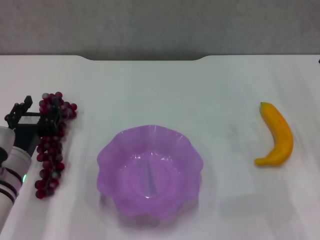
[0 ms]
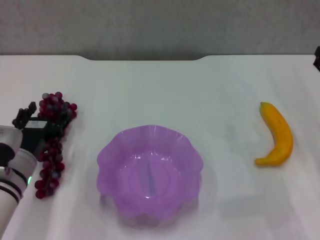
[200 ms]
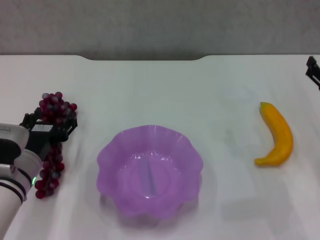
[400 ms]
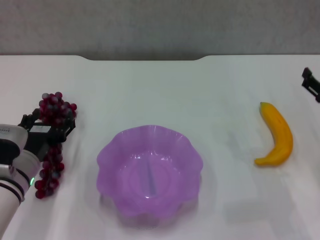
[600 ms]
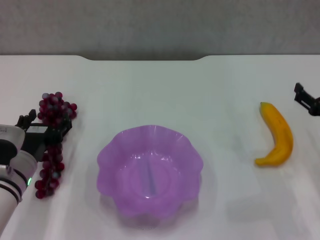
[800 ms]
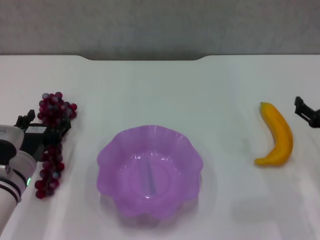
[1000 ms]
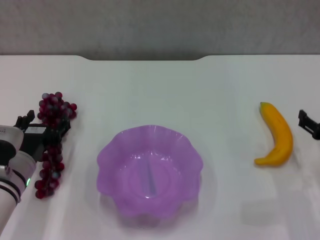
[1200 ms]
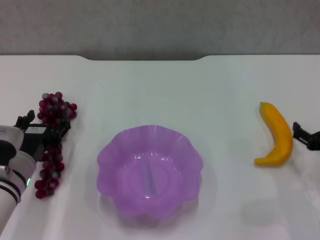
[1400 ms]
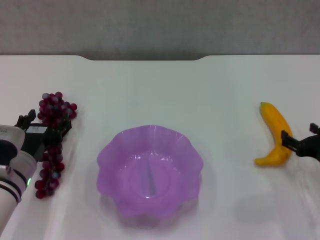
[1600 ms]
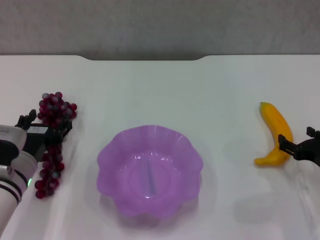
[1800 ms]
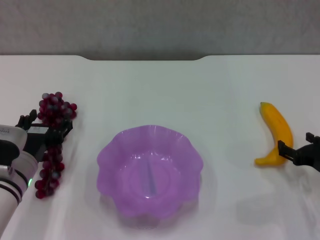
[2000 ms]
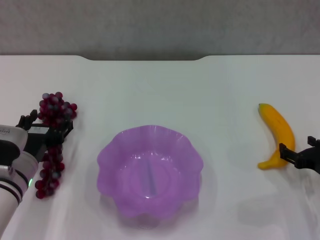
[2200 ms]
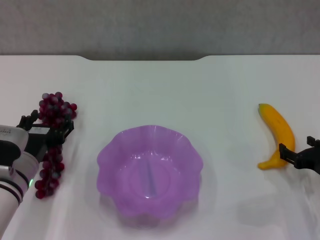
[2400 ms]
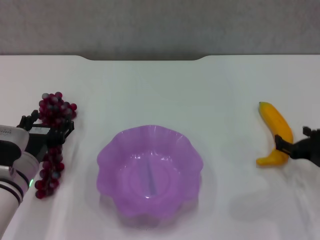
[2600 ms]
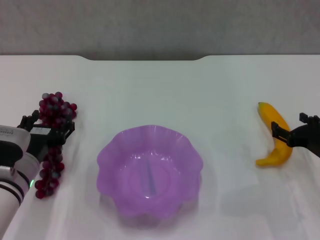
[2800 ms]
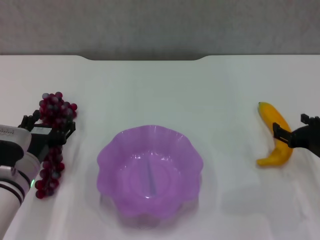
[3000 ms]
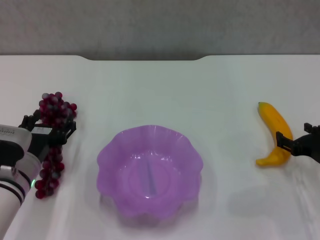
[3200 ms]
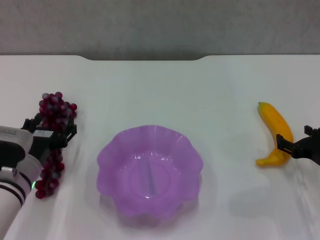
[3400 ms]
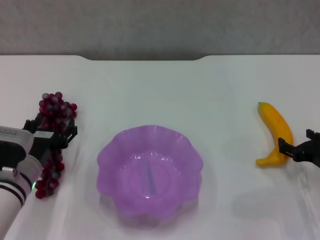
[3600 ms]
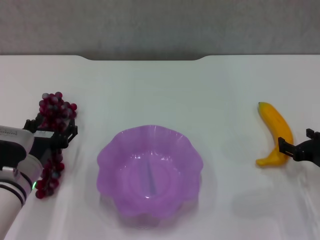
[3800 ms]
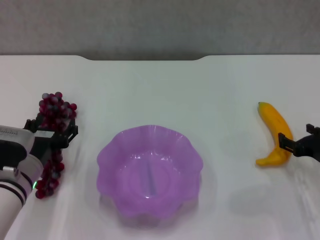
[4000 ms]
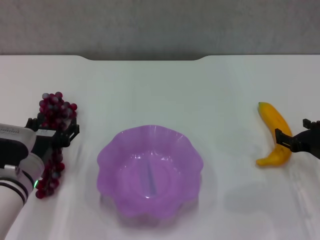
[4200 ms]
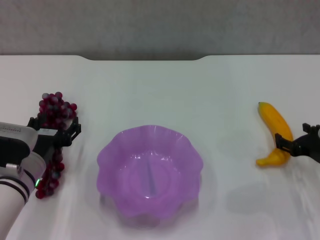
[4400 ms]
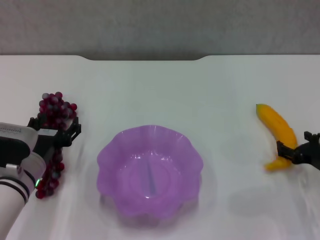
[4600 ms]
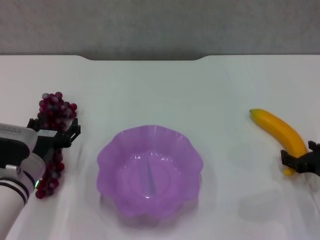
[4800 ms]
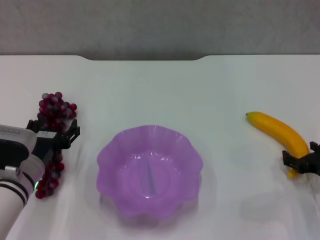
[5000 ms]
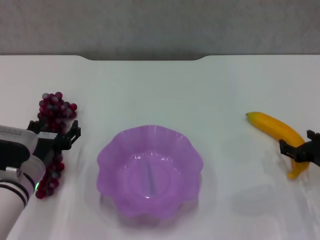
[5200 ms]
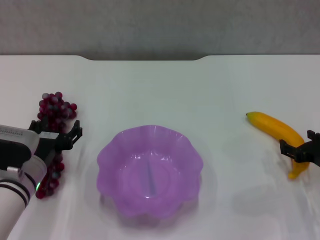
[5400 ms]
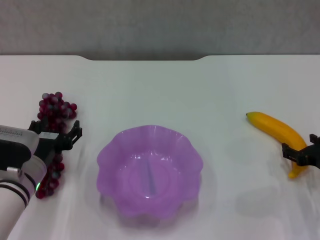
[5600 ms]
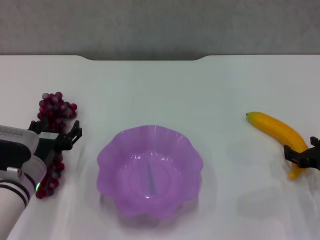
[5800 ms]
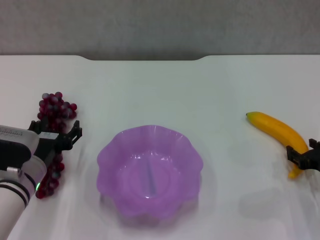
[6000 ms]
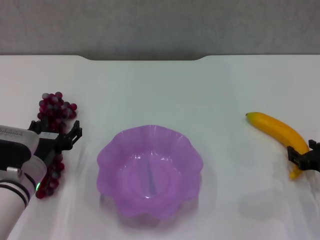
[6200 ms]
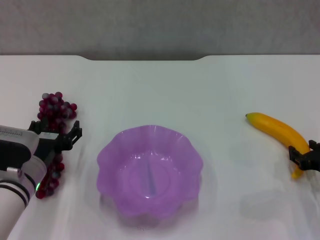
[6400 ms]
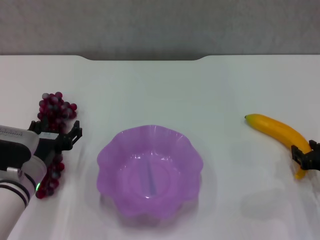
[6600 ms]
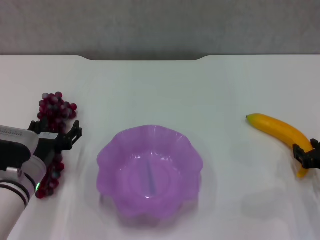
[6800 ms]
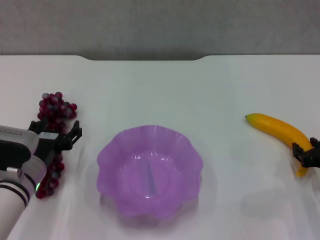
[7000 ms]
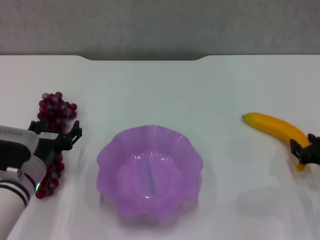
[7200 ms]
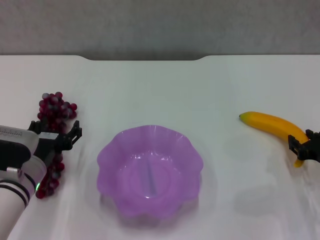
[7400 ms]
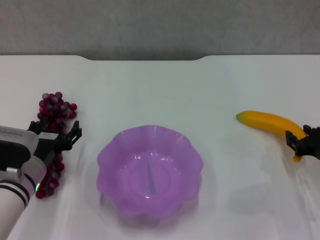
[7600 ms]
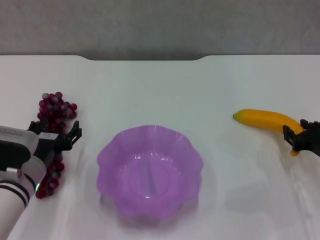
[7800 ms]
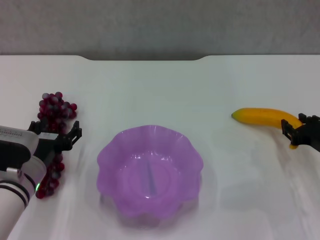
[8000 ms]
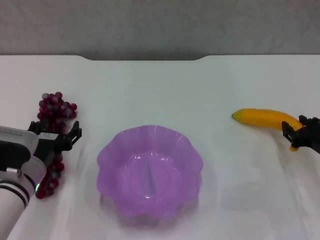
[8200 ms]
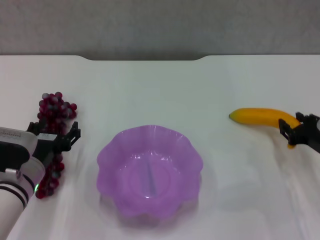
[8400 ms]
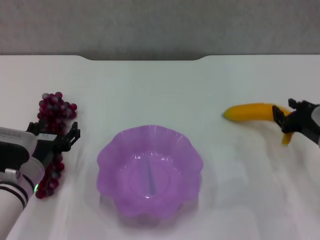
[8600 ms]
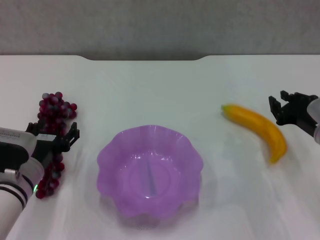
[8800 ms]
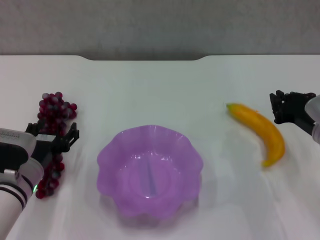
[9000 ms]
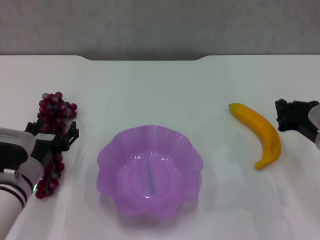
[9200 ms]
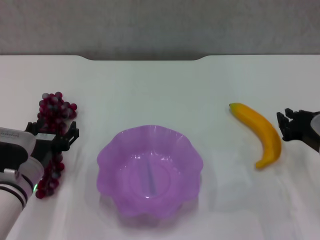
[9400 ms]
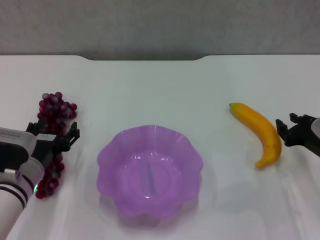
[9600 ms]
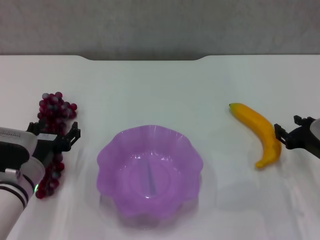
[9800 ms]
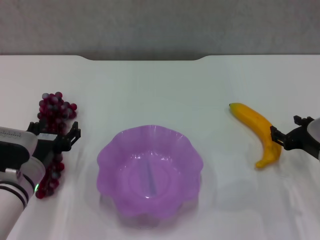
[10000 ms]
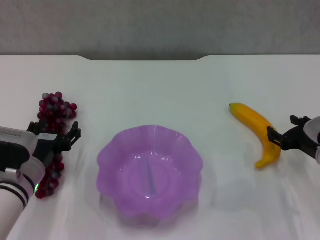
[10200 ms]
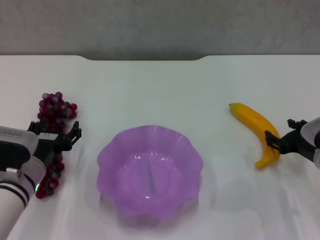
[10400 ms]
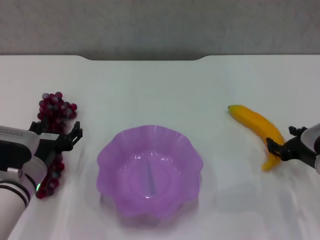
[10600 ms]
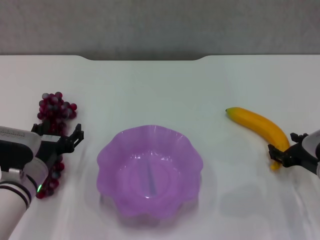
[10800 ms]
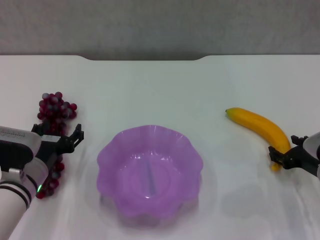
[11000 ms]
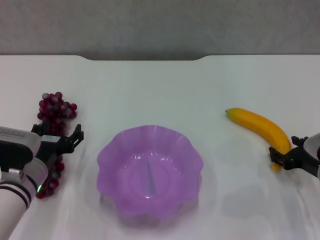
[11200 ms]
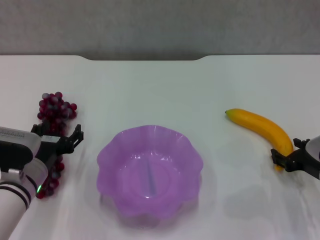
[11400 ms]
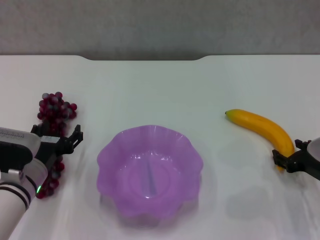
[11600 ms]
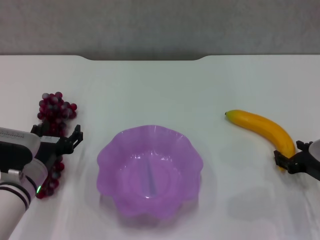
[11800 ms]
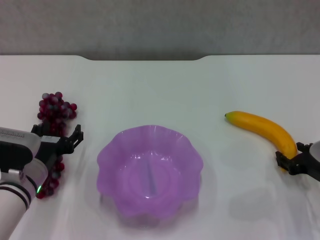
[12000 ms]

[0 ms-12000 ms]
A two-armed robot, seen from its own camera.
0 ms to 1600 ms: The left gripper opens up. The right gripper travels downward by roughly 5 cm, and opens up.
1600 ms to 7600 ms: The grippers make only small movements.
7600 ms to 9000 ms: The right gripper moves approximately 5 cm.
9000 ms to 10400 ms: The right gripper opens up.
10400 ms to 12000 ms: The grippers make only small movements.

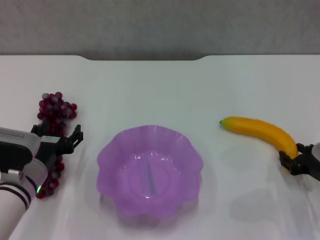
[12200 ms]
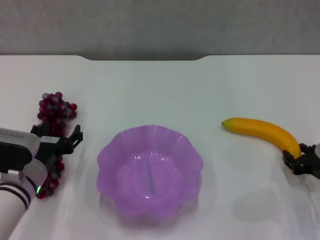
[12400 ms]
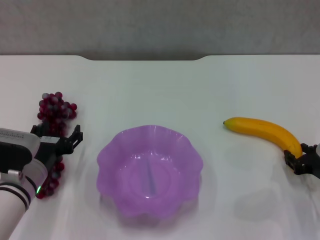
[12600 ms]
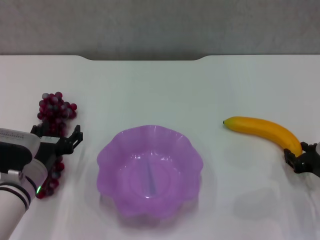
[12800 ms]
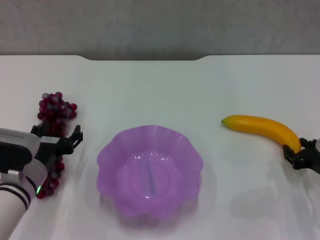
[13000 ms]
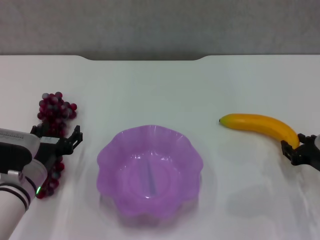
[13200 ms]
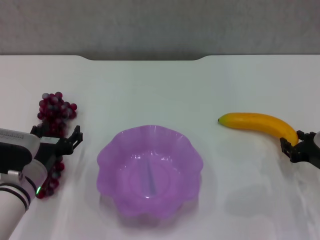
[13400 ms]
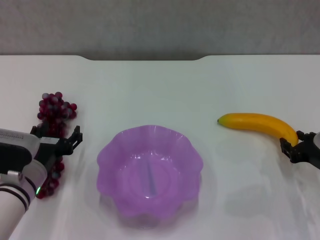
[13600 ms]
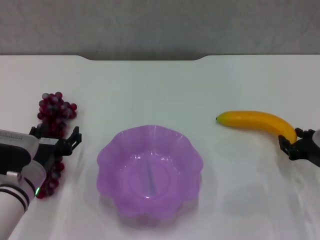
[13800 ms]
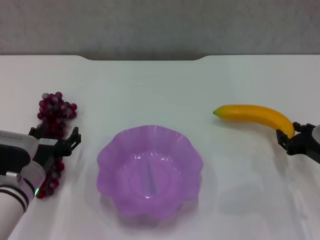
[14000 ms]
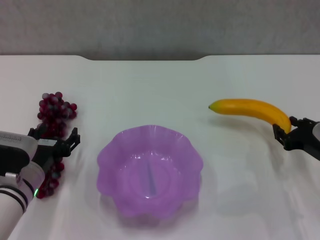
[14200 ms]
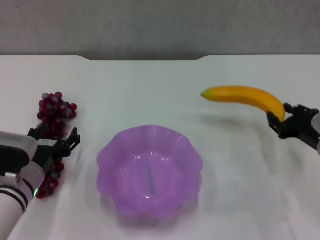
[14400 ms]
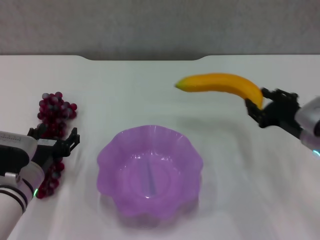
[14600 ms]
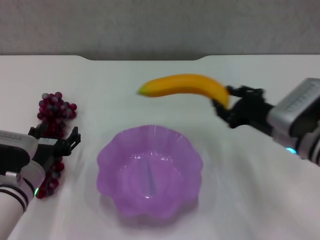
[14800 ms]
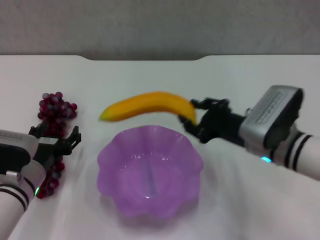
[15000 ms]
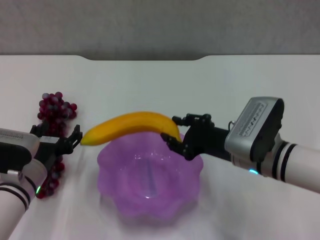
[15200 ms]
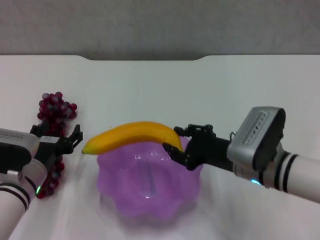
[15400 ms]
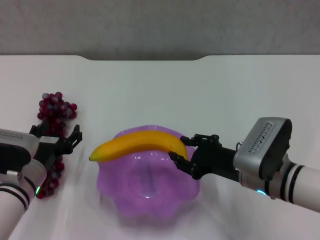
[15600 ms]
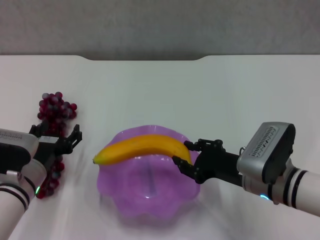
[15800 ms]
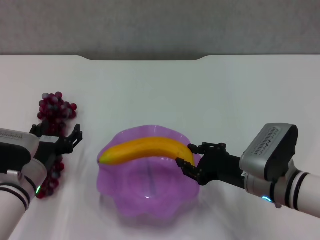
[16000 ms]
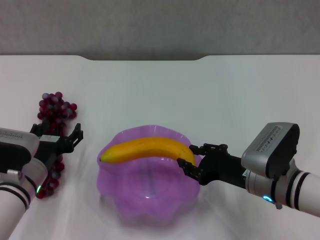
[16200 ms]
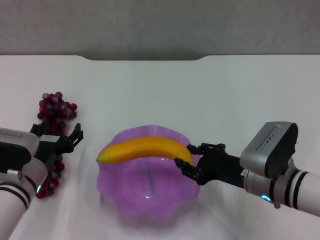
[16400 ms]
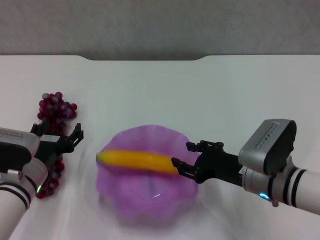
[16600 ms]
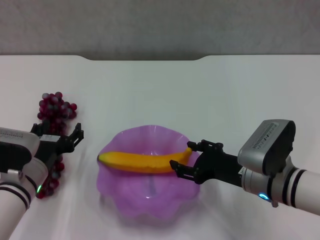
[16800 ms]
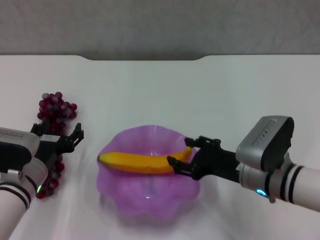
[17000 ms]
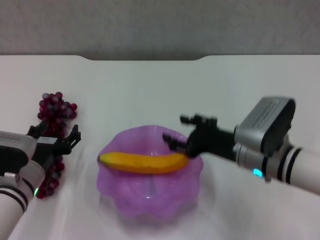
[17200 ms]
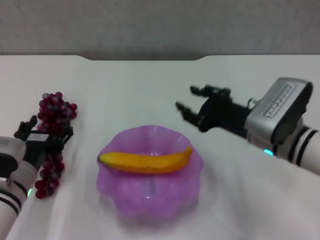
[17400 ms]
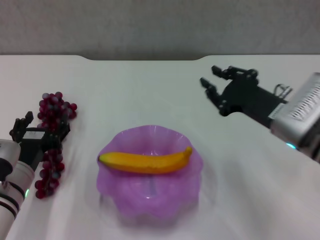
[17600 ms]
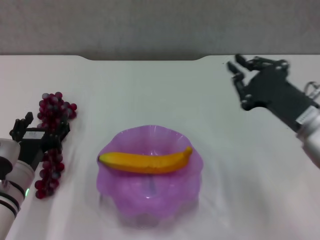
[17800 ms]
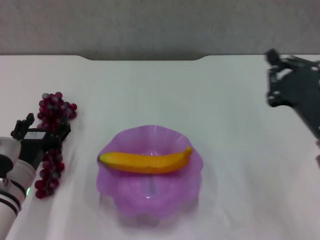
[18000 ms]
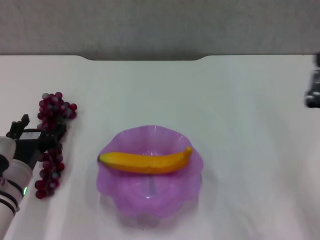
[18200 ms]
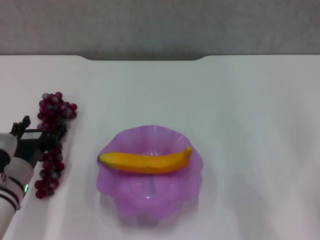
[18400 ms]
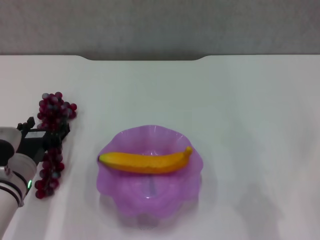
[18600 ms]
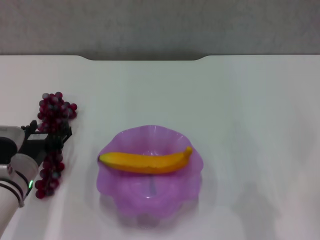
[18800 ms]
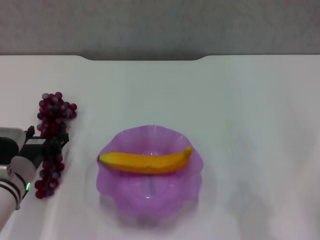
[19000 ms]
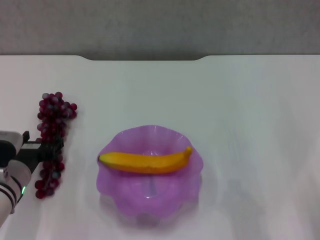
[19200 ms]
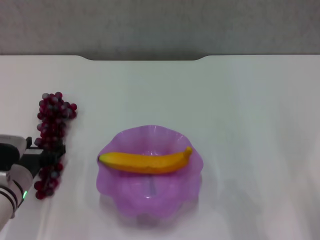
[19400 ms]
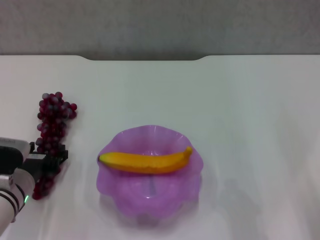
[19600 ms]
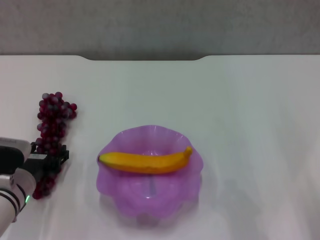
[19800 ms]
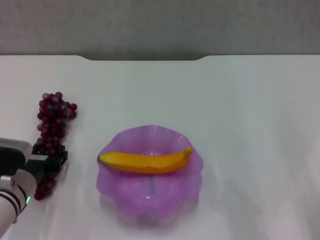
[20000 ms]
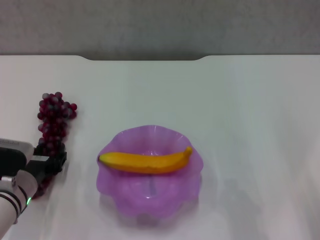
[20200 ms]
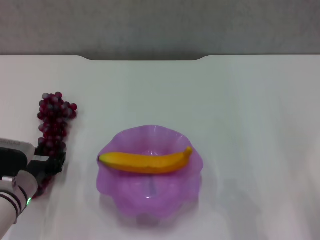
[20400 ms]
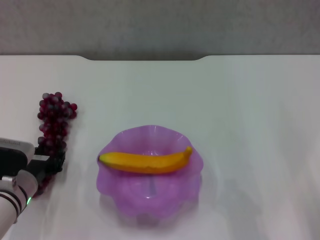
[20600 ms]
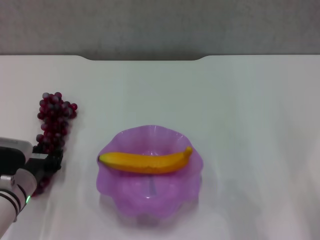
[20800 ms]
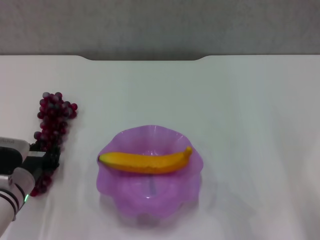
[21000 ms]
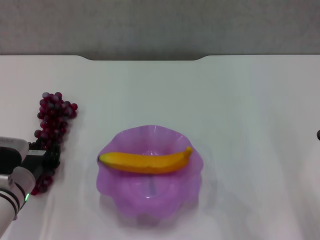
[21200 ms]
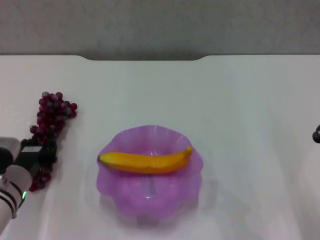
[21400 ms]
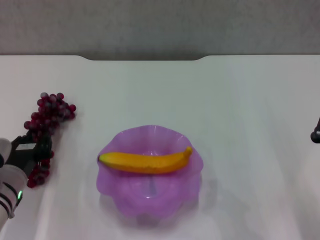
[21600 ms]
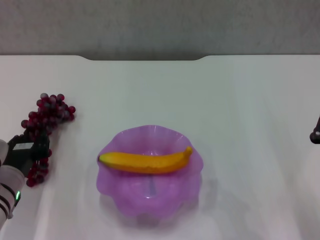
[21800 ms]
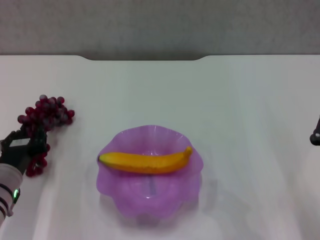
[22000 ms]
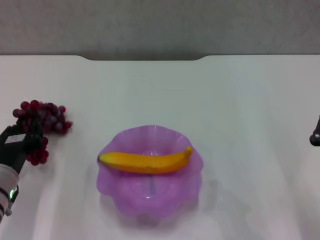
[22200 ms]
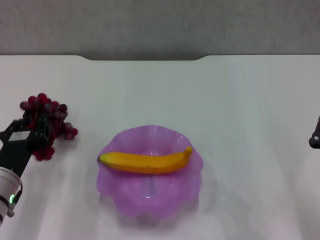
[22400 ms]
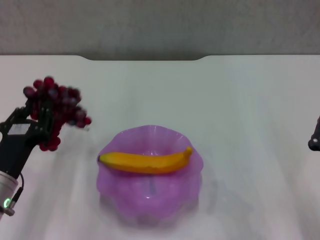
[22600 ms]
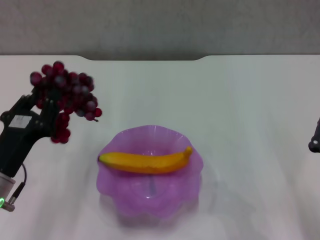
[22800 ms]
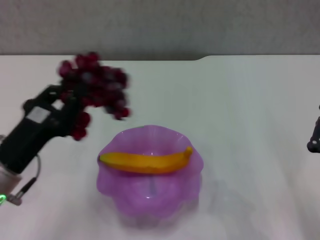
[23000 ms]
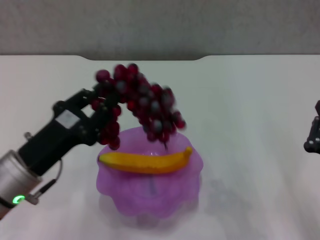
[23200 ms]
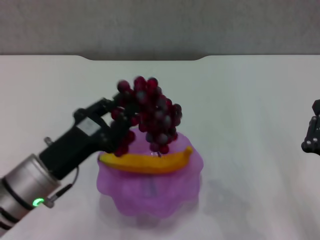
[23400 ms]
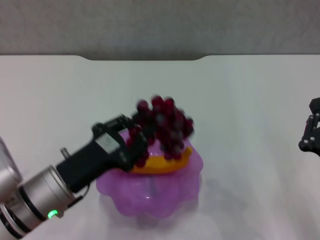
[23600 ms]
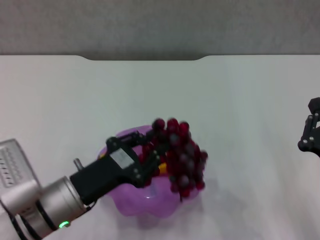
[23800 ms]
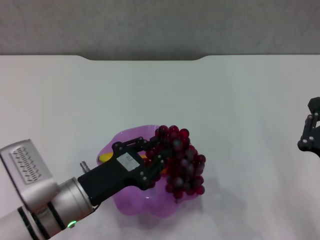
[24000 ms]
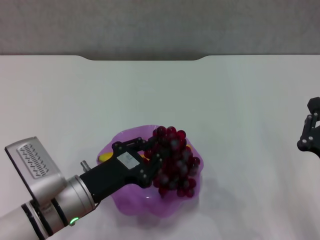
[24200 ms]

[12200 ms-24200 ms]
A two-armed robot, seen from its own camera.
Step, 12800 ms to 17200 ms: Place the banana in the purple plate with right gripper.
Step, 17400 ms to 20400 ms: Grasp the grape with left gripper.
12200 ms to 13800 ms: The grippers make only small movements.
13800 ms to 15200 ms: The right gripper heads to the left, covering about 15 cm.
15200 ms to 16600 ms: The grippers stay close to where they were, moving slightly.
16600 ms to 18200 ms: The right gripper goes some 10 cm to the right, upward and backward, and closes its fingers.
18200 ms to 19800 ms: The right gripper moves roughly 5 cm.
19800 ms to 21200 ms: The left gripper closes.
21200 ms to 22600 ms: The left gripper shifts by roughly 5 cm.
22600 ms to 24200 ms: The left gripper shifts roughly 10 cm to the right.
